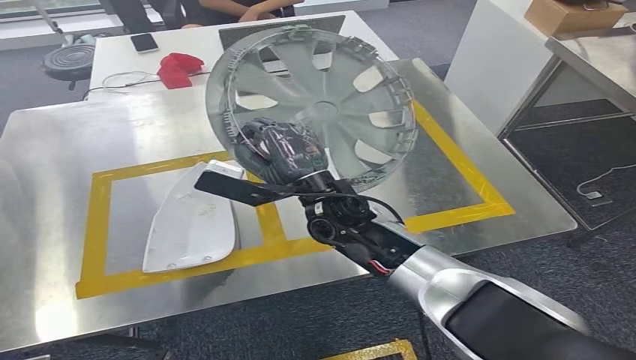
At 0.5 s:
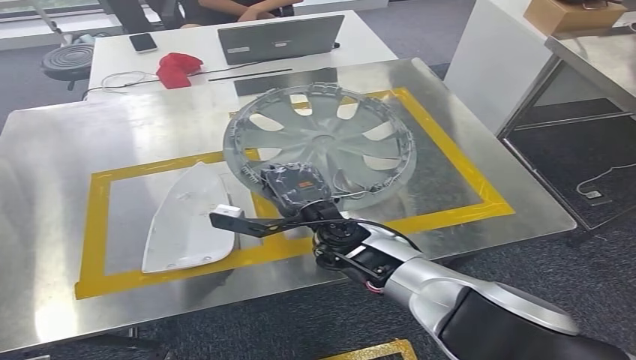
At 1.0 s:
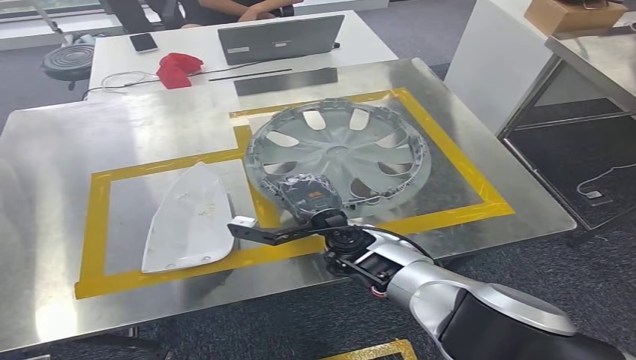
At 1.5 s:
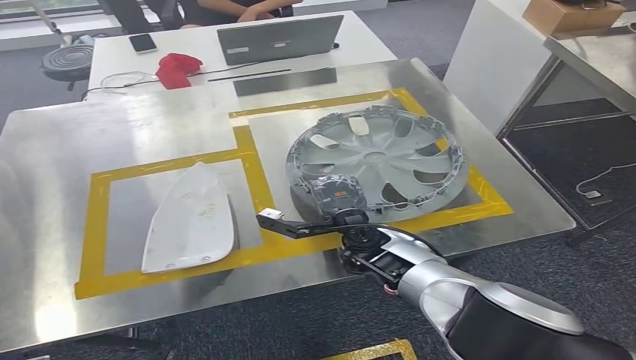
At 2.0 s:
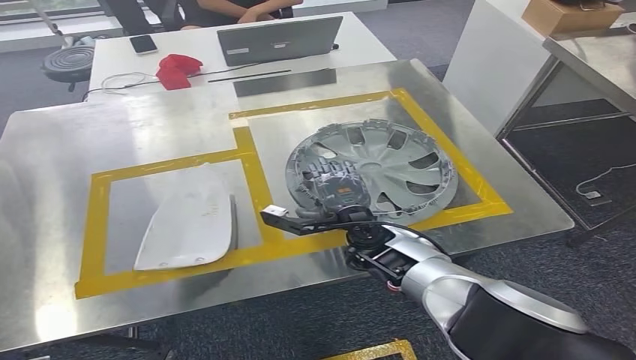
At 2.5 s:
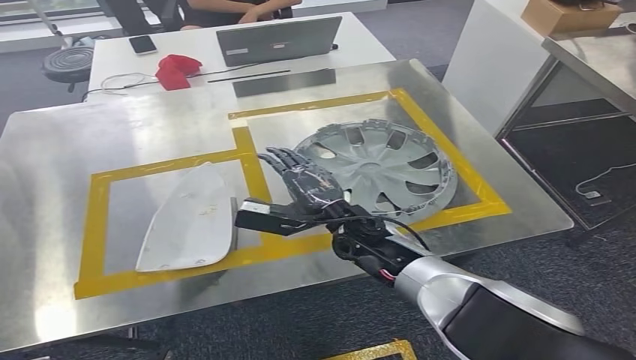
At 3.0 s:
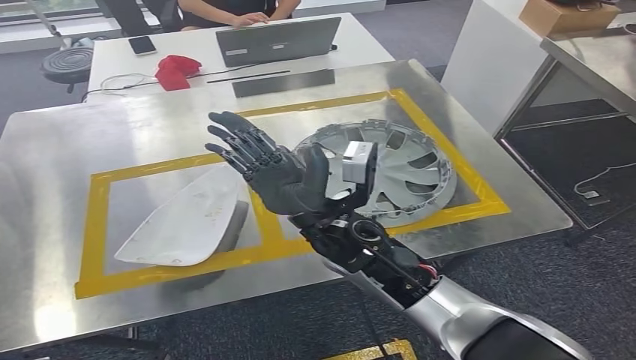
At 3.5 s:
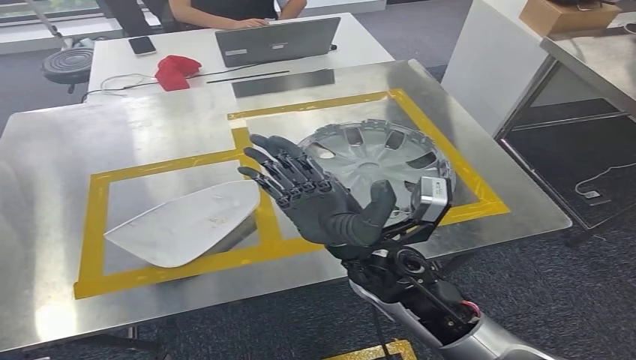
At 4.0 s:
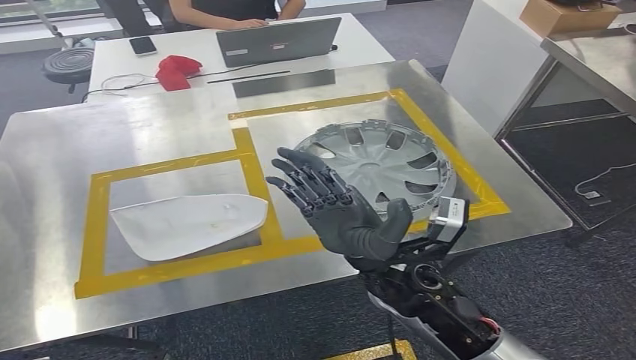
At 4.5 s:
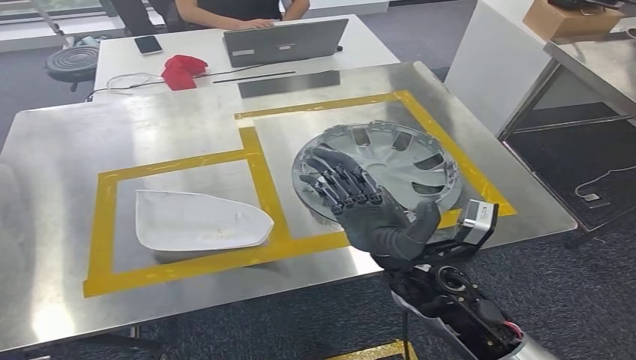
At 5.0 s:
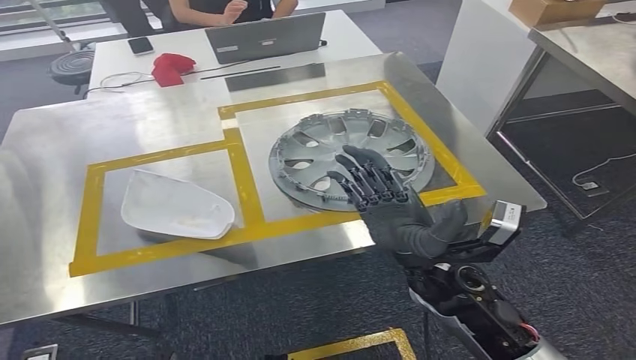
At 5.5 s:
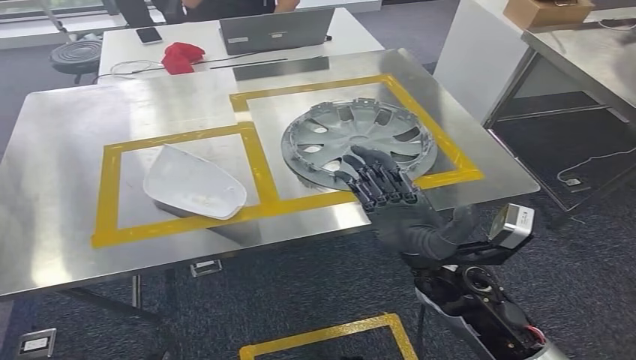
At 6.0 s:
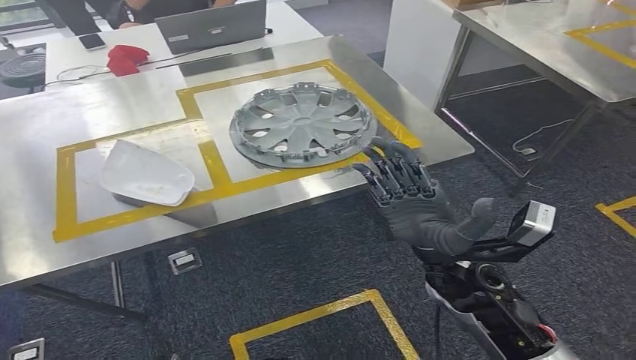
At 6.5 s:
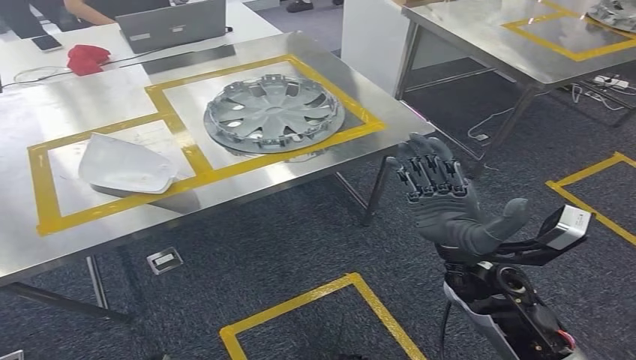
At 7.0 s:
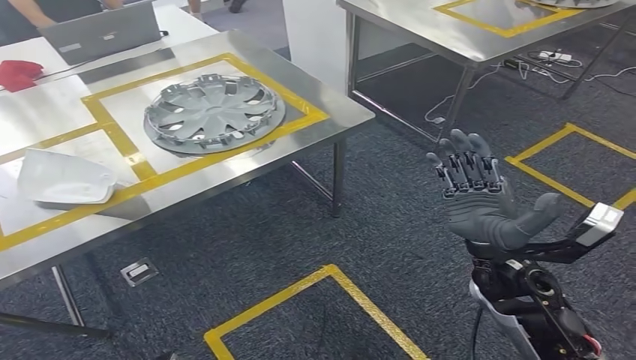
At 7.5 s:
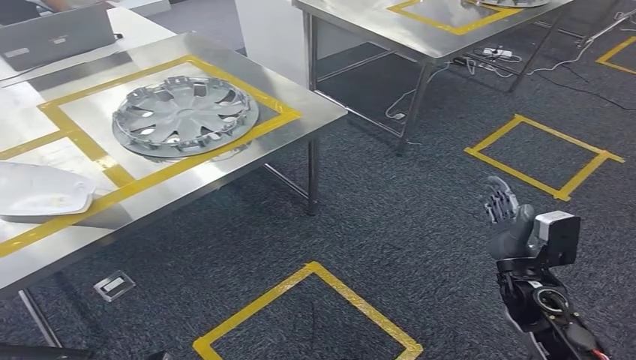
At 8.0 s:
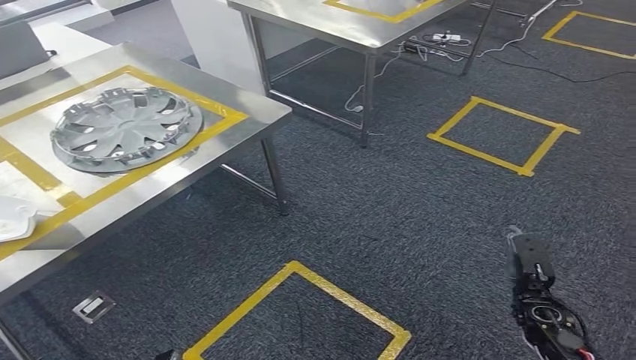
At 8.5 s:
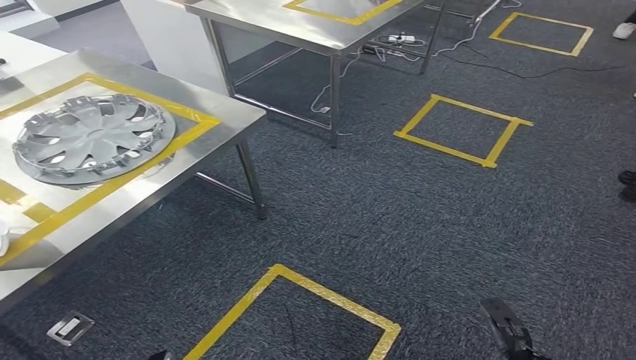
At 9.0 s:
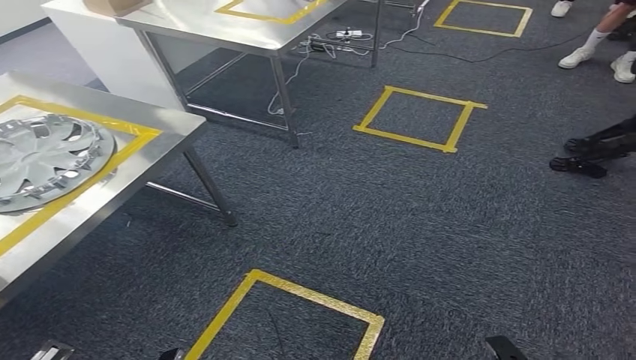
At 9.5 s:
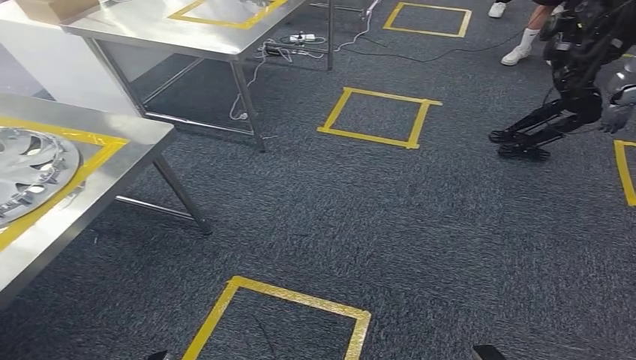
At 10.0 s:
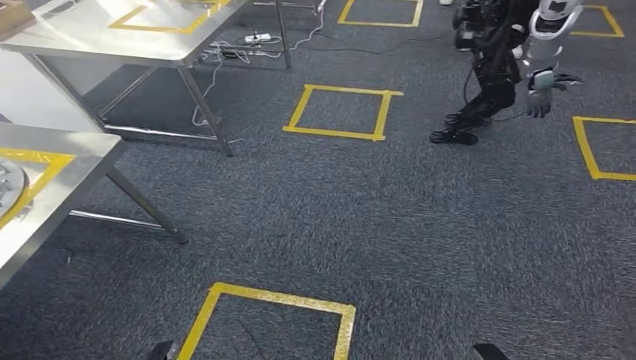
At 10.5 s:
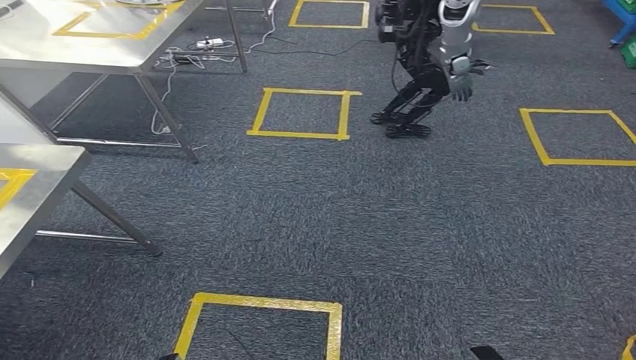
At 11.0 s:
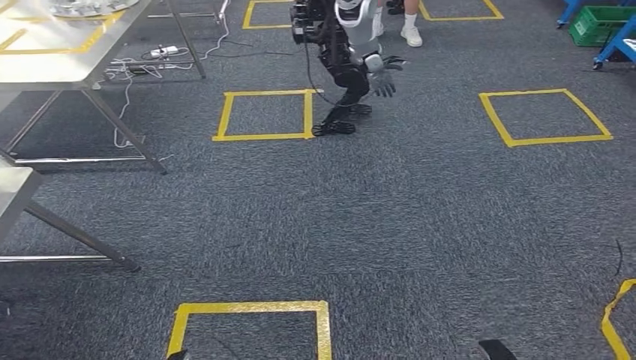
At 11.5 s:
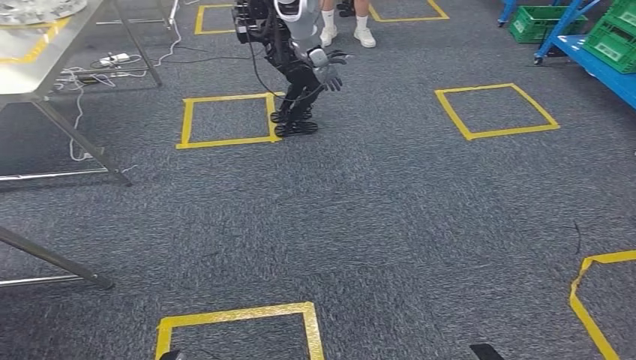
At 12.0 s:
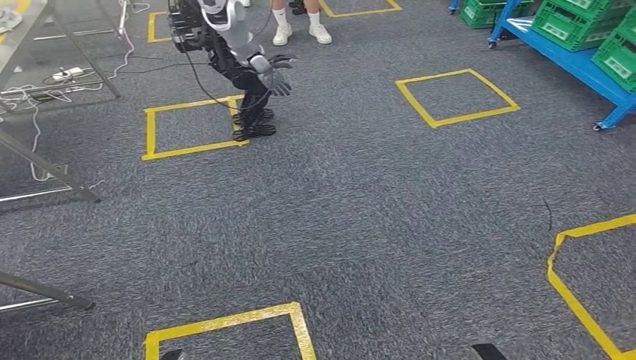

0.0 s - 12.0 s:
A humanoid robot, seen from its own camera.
Step, 0.0 s - 4.0 s: Insert the small parts into the corresponding holes on the workbench.
0.0 s - 2.0 s: The right hand heads downward and to the right, covering roughly 10 cm.
2.0 s - 4.0 s: The right hand heads backward and upward, covering roughly 10 cm.

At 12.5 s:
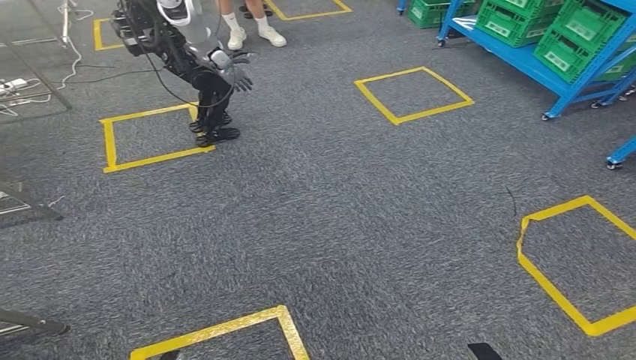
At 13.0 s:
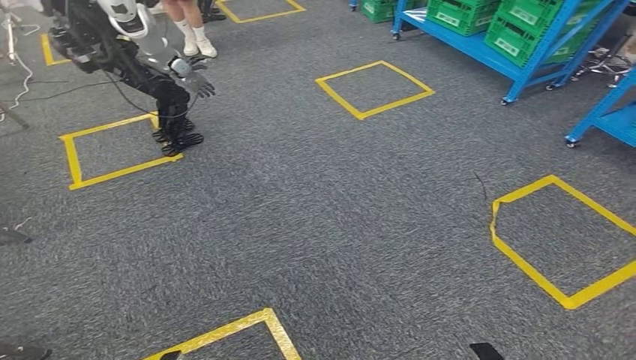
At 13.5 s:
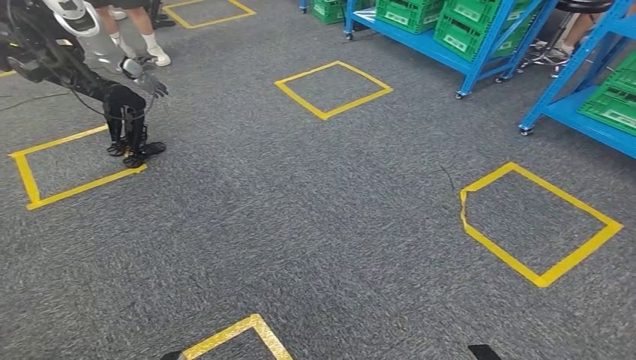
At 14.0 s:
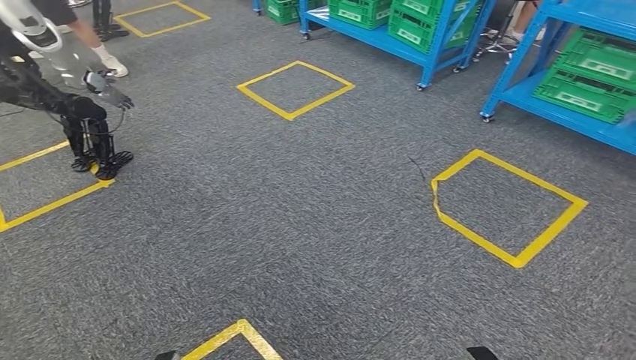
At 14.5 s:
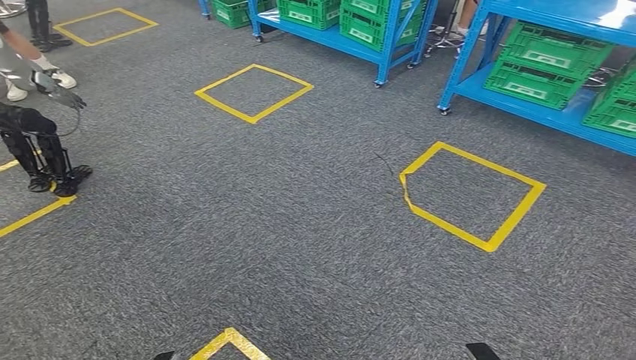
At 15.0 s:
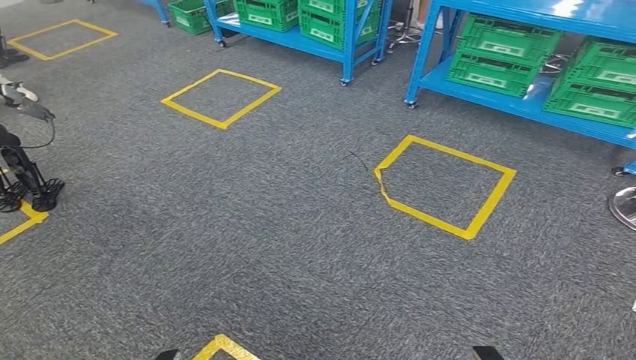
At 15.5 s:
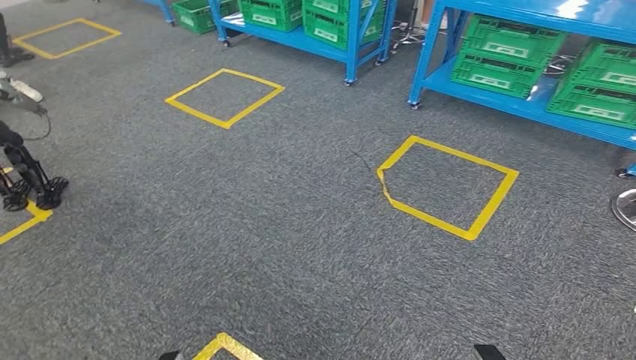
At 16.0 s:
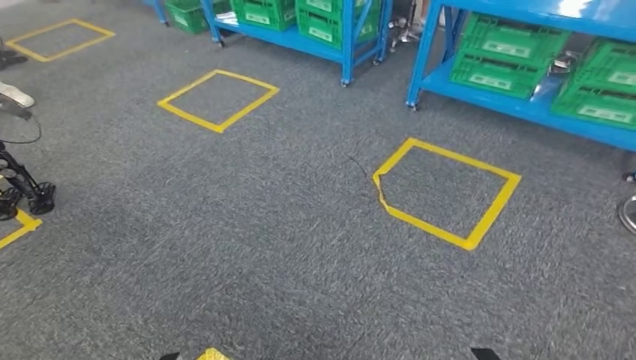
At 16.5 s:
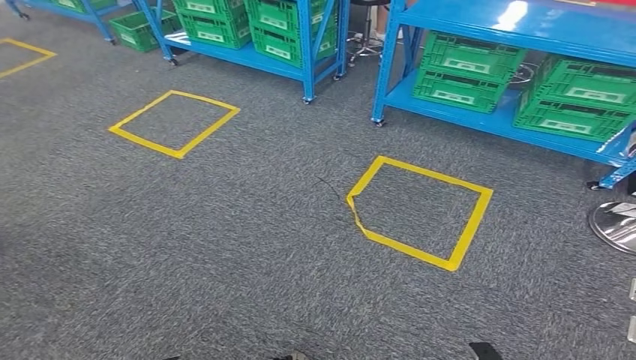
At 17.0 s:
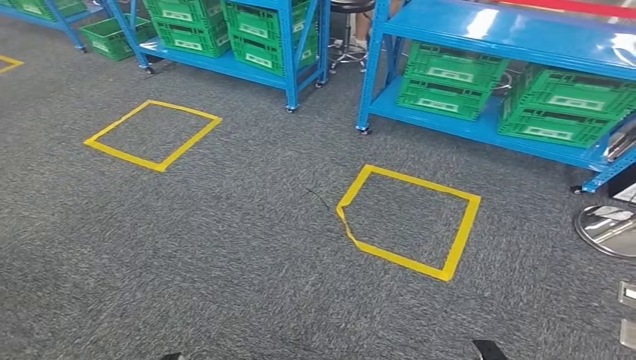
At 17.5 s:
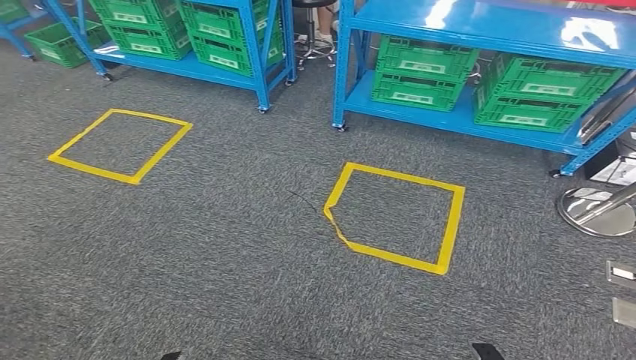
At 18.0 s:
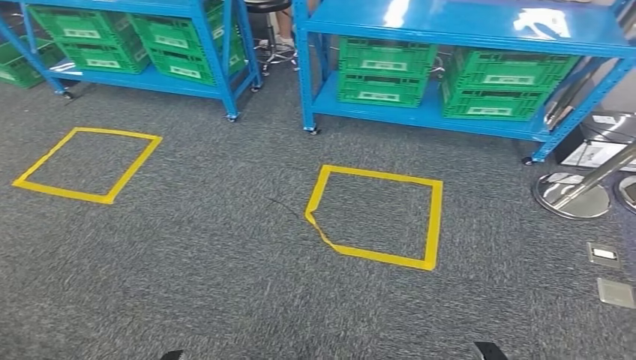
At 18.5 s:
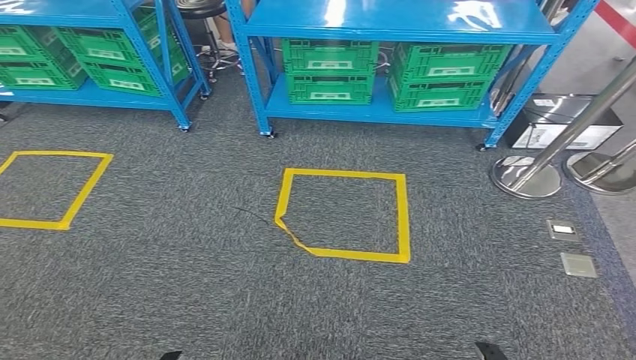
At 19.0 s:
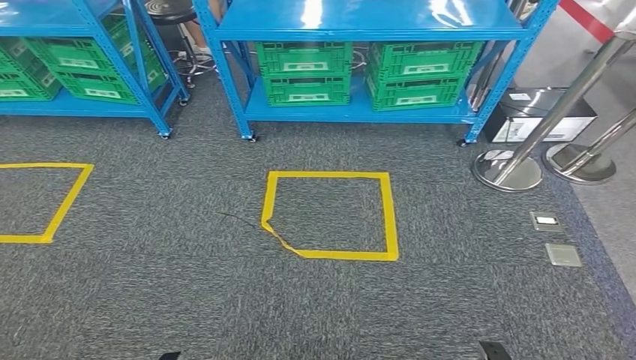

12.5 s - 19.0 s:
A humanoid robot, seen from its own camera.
Step, 12.5 s - 19.0 s: Move to the initial position at the workbench.

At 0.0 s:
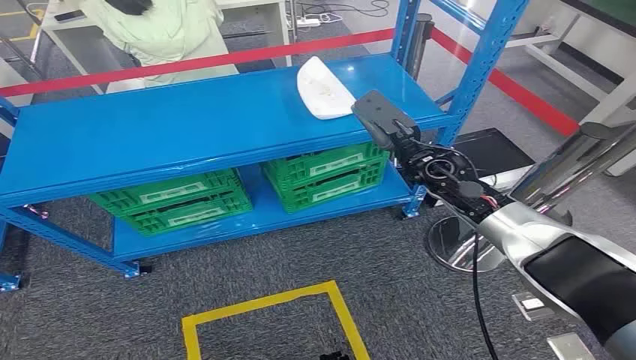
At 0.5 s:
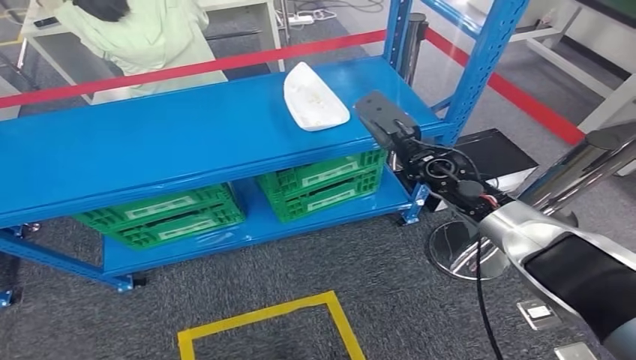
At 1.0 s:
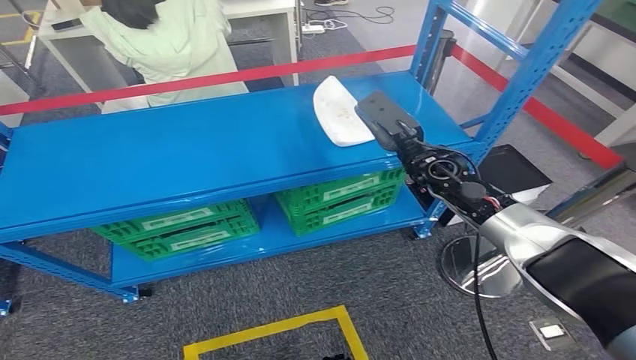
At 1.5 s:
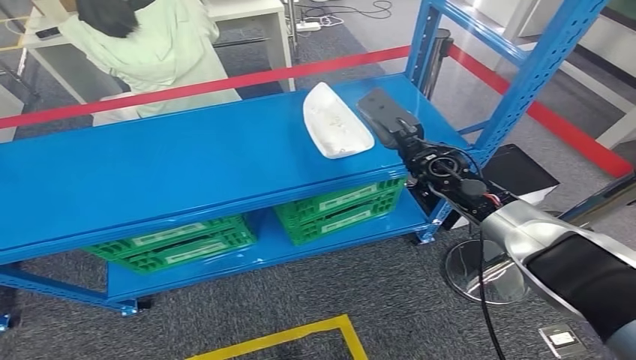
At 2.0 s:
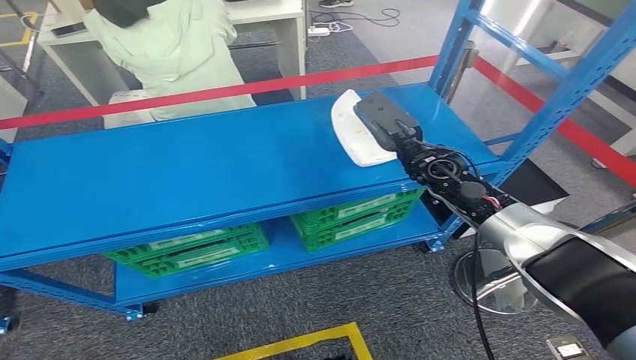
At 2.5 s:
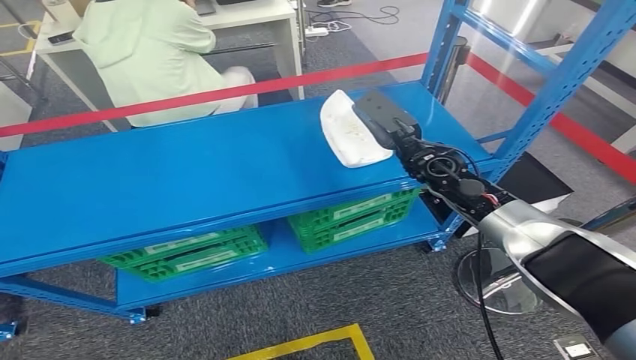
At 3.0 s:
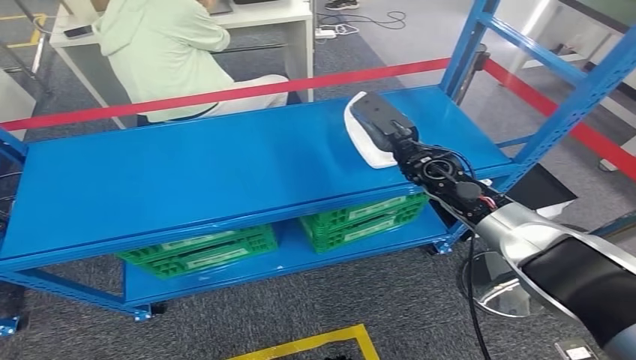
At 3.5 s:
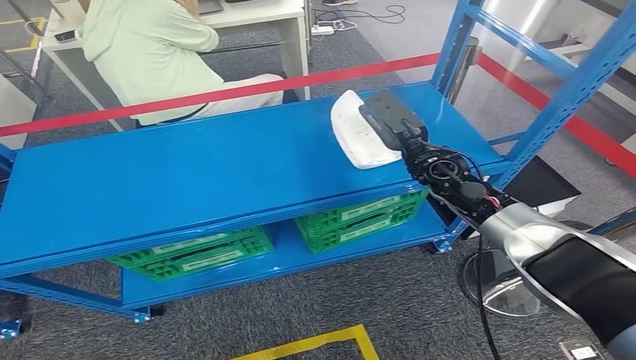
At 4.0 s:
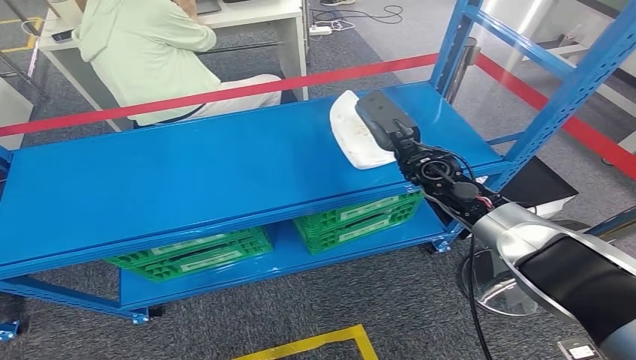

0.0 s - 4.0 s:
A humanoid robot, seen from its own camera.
2.0 s - 4.0 s: The hands move only a little.
